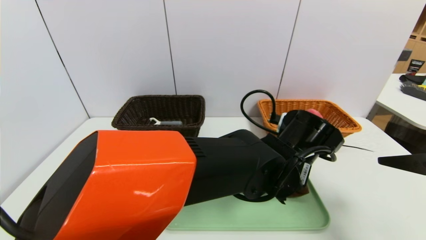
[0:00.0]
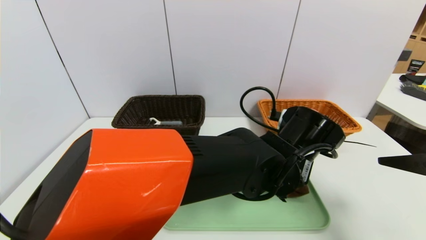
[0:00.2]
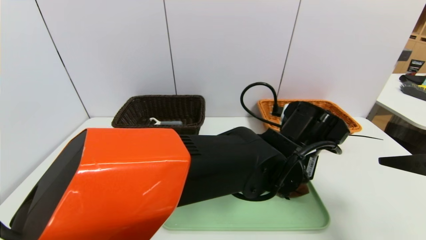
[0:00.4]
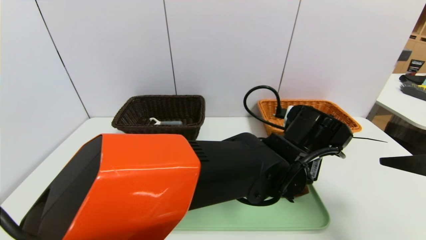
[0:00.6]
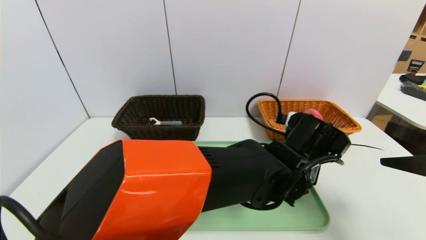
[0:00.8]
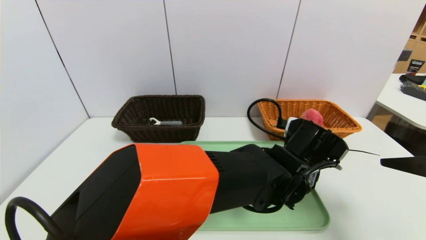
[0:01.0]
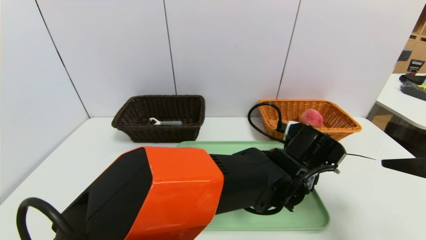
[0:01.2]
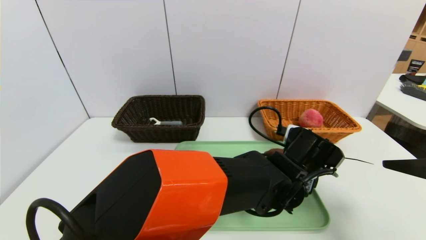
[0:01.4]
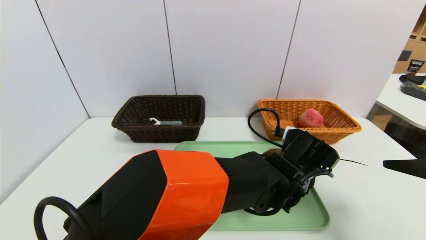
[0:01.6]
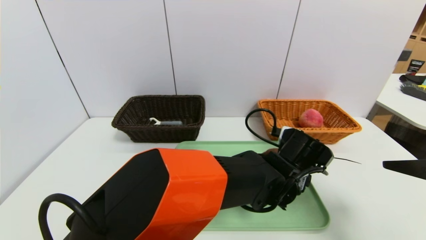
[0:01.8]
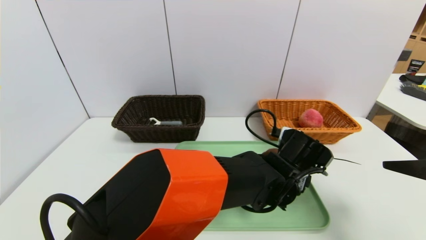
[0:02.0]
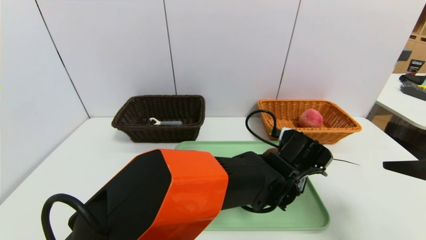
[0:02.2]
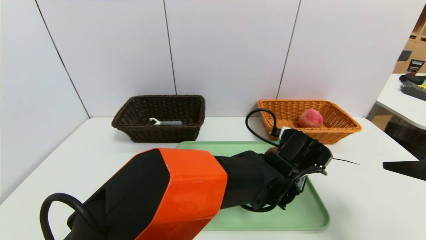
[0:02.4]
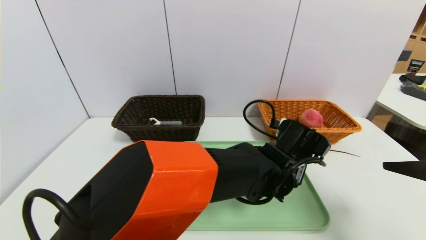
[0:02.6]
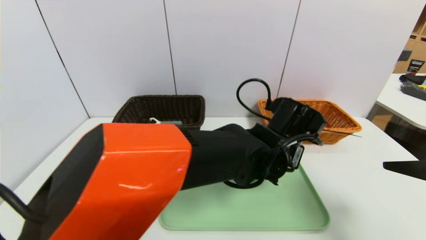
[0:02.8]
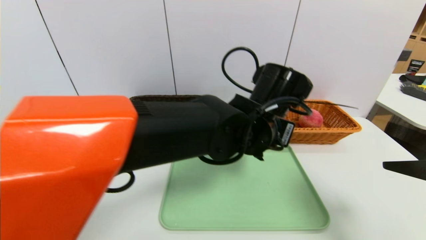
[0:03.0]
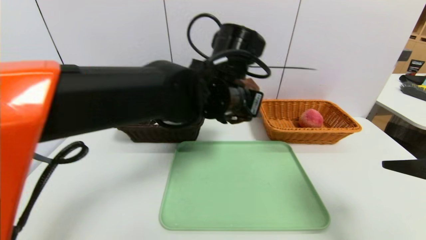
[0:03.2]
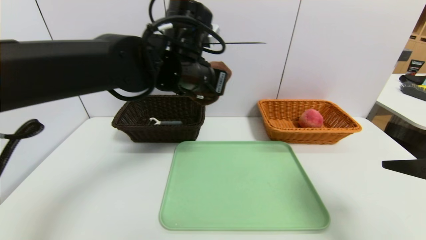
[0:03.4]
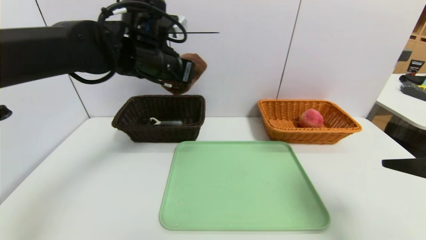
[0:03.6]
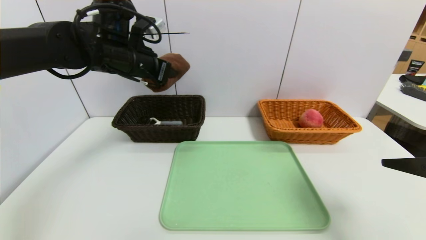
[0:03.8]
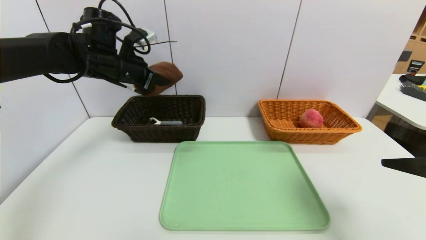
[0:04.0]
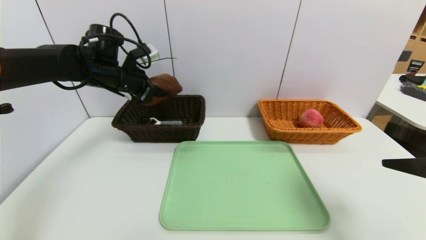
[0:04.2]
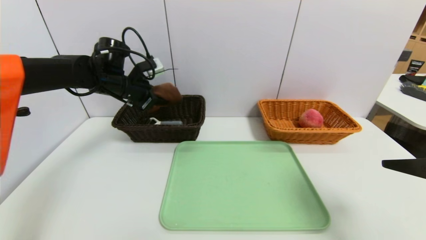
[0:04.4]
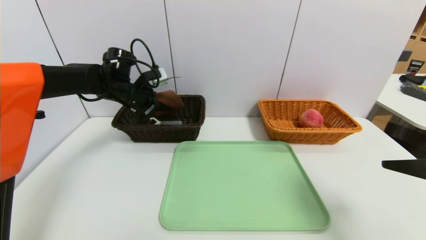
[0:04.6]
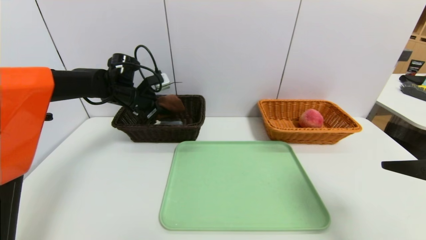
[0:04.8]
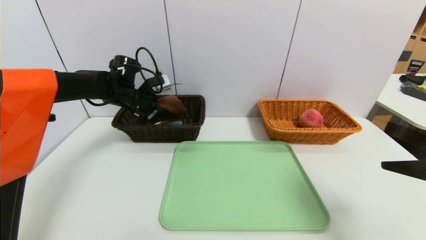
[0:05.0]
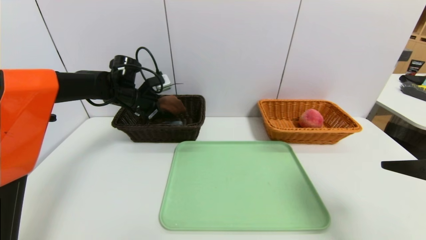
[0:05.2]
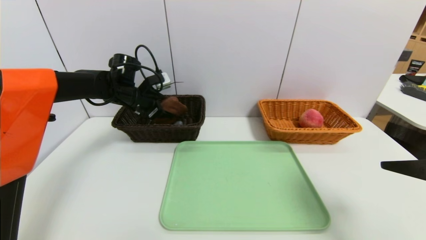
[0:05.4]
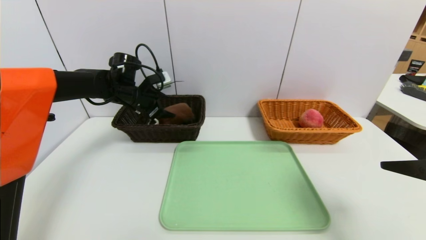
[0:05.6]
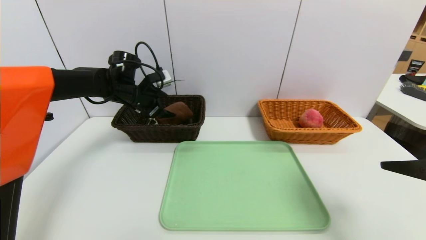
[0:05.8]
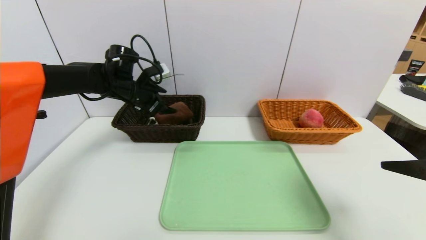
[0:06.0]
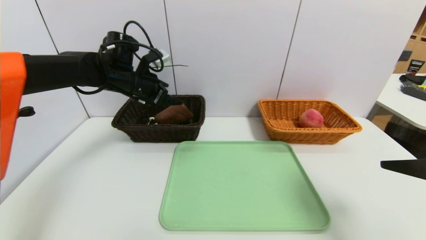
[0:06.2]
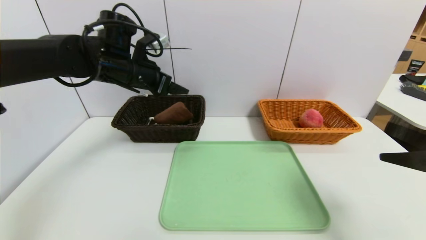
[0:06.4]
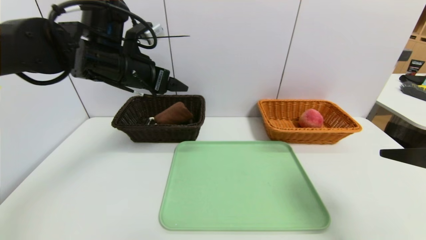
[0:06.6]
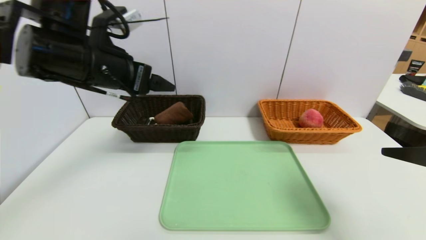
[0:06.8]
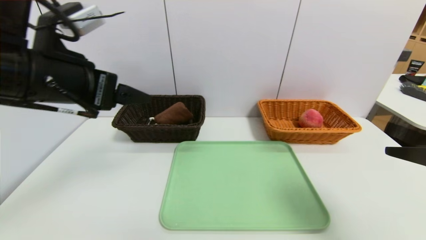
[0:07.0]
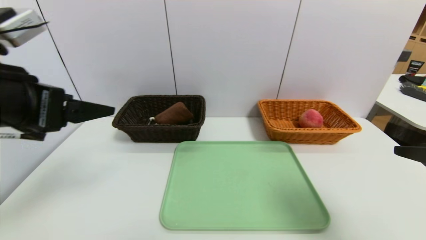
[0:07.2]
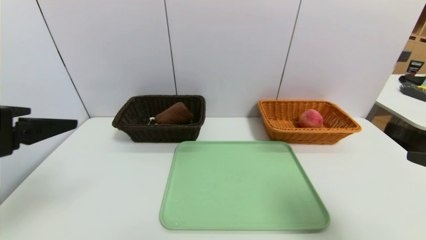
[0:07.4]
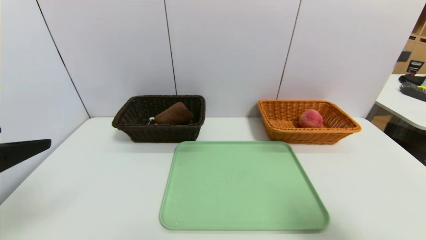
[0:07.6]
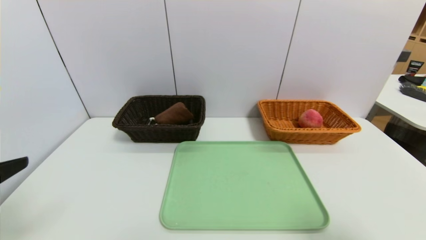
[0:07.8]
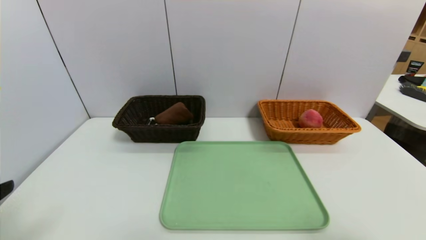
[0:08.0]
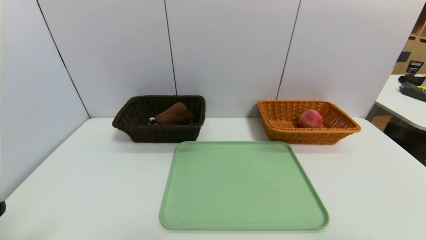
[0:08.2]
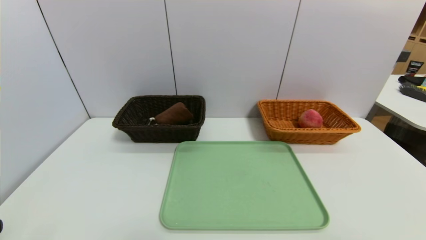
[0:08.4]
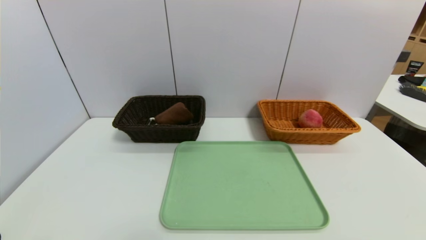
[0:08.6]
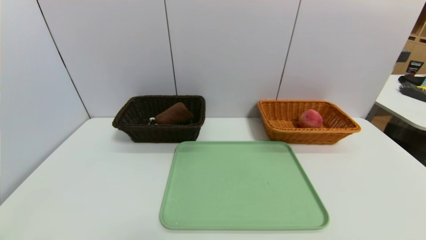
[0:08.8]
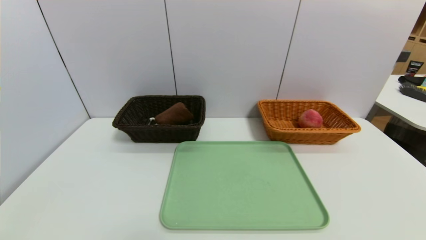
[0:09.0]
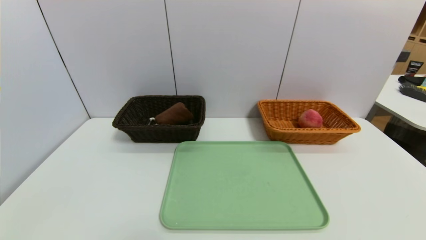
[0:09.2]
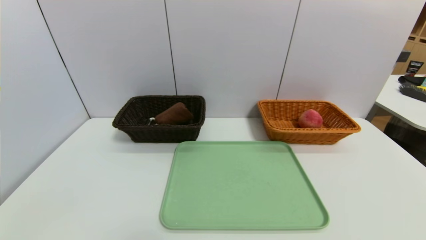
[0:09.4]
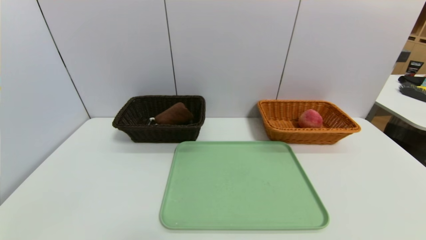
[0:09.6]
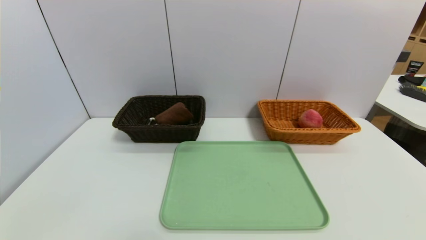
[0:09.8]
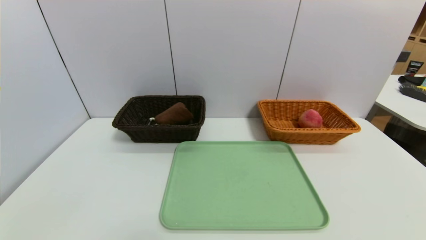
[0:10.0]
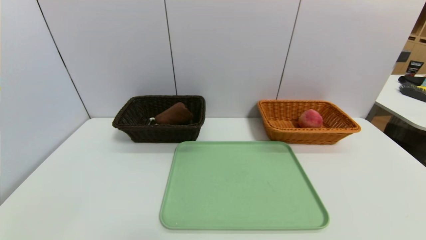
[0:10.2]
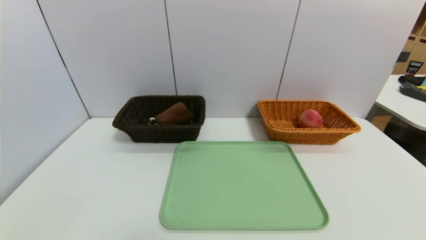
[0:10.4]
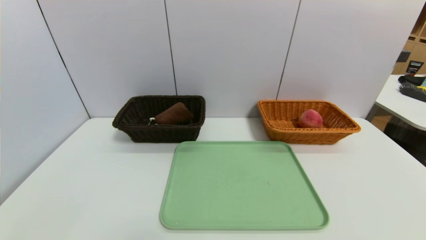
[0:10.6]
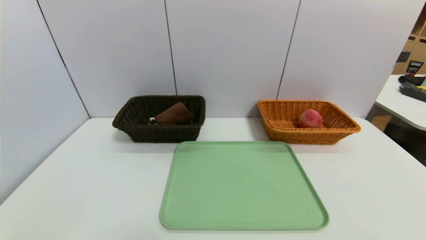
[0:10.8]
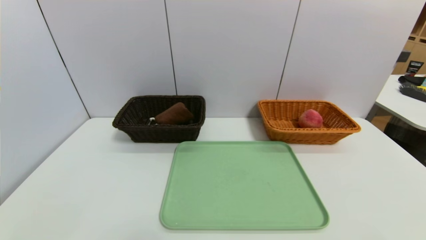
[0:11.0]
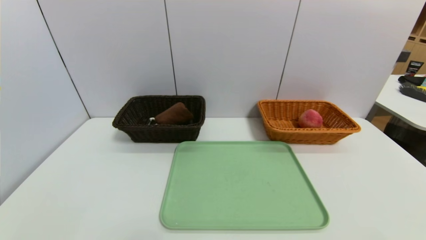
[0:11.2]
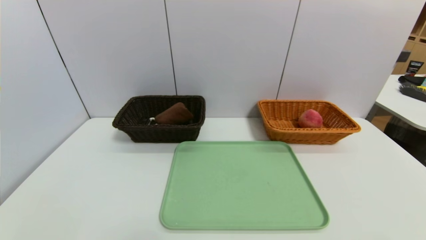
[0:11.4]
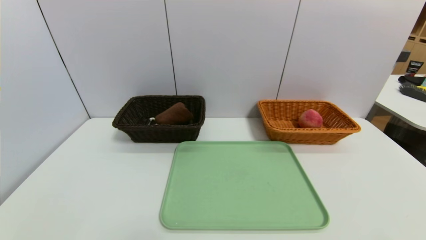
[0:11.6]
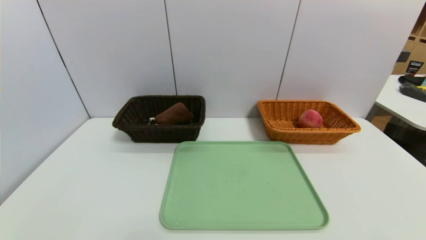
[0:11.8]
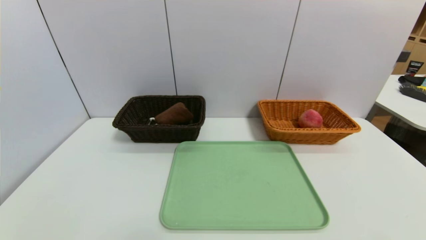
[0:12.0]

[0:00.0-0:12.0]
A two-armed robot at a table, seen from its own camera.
Task of the whole recording: place the food in the right basket with the right gripper, and place the non food items in the left basket with the left gripper.
Step, 0:00.0 to 0:06.2: Grasp the brown towel and put it in the left basket.
0:00.0 to 0:01.6: The left gripper shifts by approximately 5 cm, and opens.
0:01.6 to 0:03.0: The left gripper shifts approximately 15 cm upward and to the left, and closes up.
0:03.0 to 0:04.4: The left gripper goes some 35 cm to the left and forward.
0:04.4 to 0:06.0: The left gripper opens up.
0:06.0 to 0:07.6: The left gripper heads backward, covering about 35 cm. Meanwhile the right gripper is displaced backward by some 5 cm.
0:07.6 to 0:09.0: The left gripper heads downward and backward, covering some 15 cm. The right gripper travels backward and downward by some 10 cm.

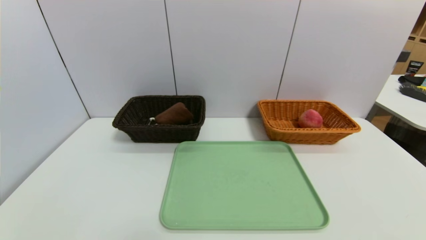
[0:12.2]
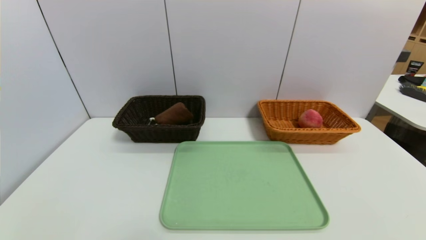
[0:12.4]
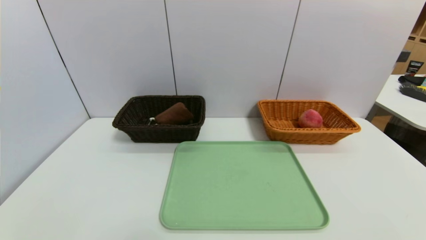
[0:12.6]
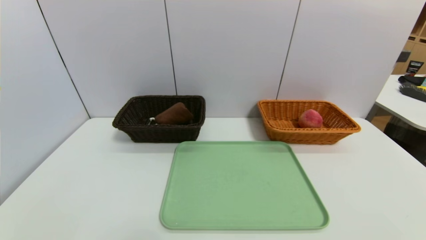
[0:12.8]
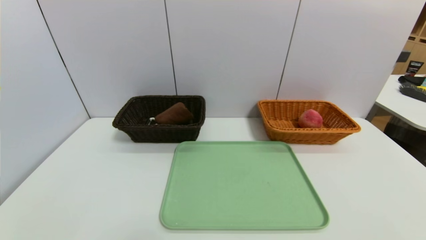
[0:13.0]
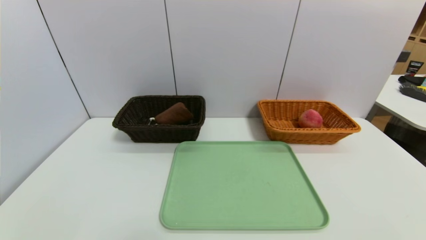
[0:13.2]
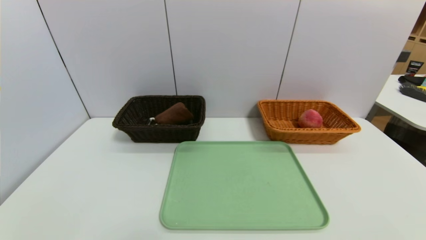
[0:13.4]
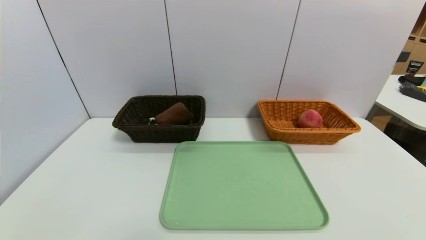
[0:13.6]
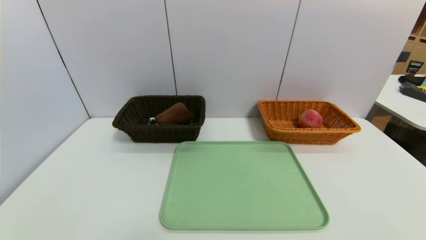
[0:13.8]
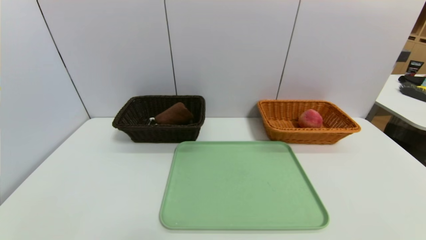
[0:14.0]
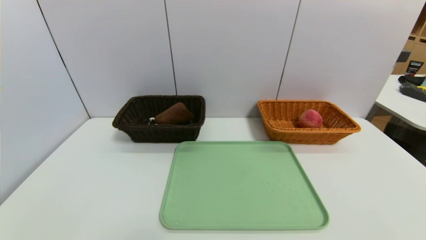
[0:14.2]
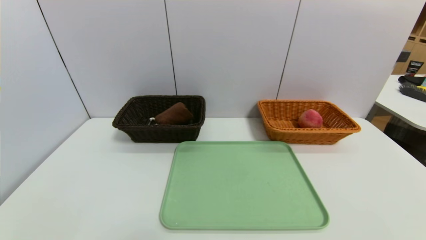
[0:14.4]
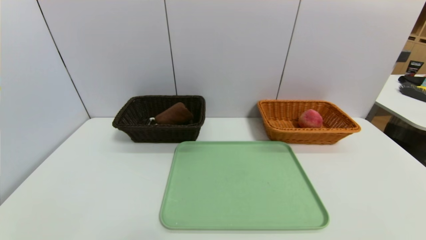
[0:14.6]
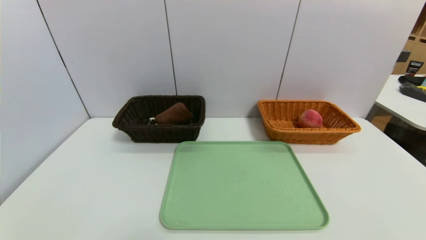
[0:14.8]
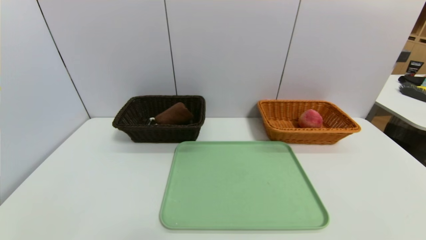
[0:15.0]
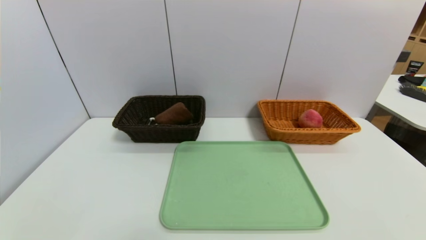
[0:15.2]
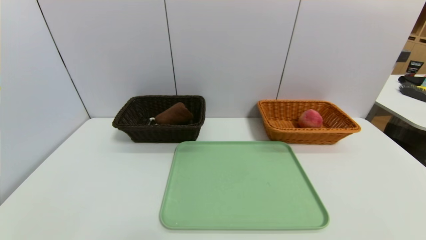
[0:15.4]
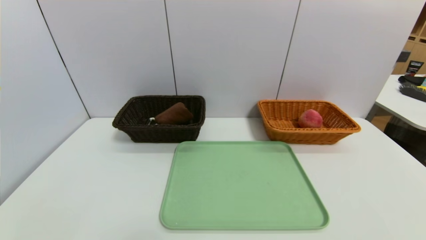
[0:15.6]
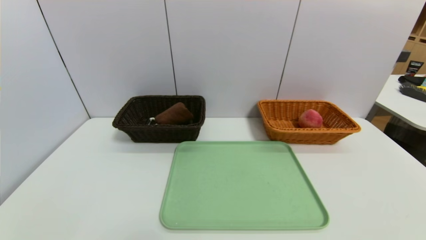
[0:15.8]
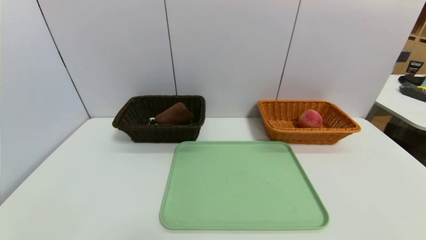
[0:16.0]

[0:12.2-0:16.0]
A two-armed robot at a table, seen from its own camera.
Task of the whole recording: place the food in the right basket with the right gripper, and place the non food items in the left basket with the left gripper.
0:14.8 to 0:16.0: The two grippers keep their place.
